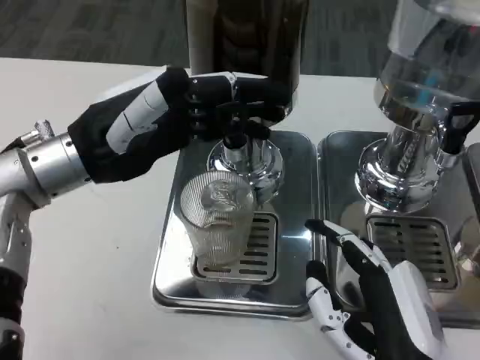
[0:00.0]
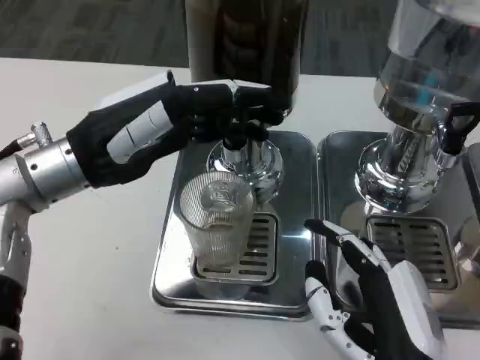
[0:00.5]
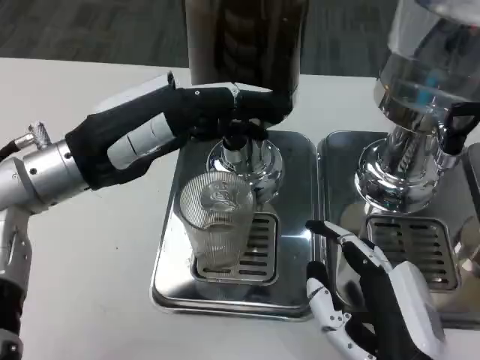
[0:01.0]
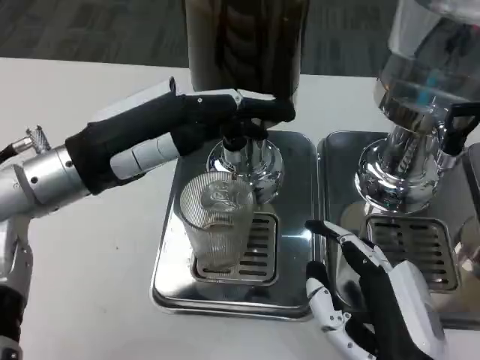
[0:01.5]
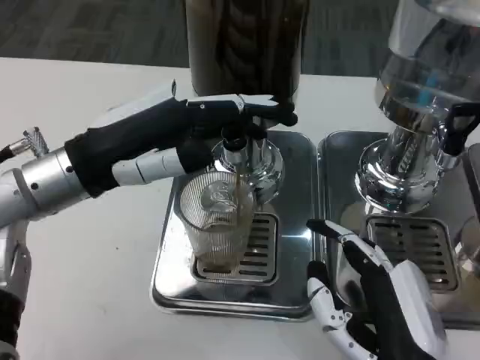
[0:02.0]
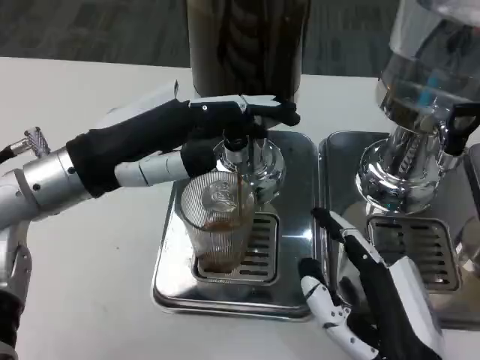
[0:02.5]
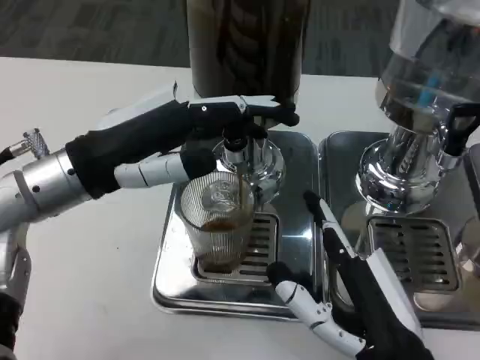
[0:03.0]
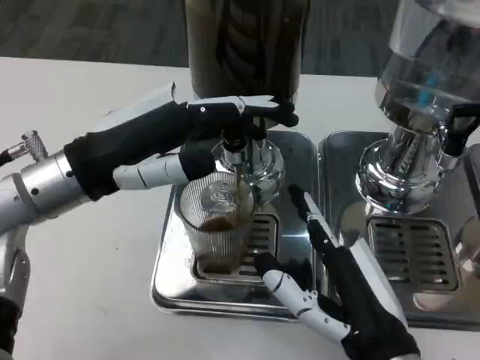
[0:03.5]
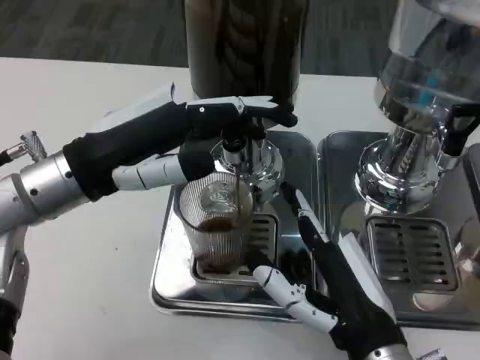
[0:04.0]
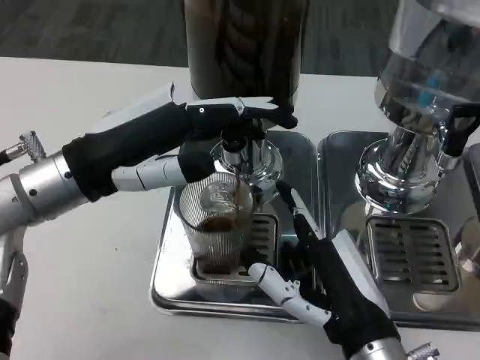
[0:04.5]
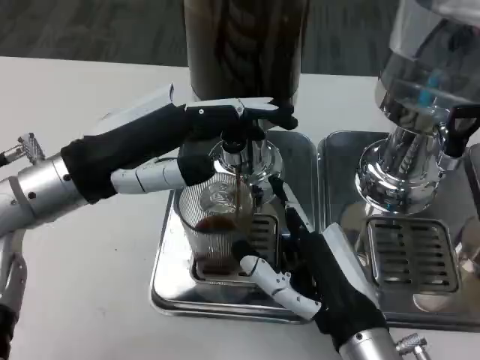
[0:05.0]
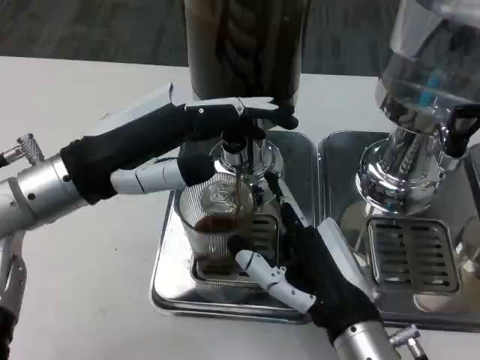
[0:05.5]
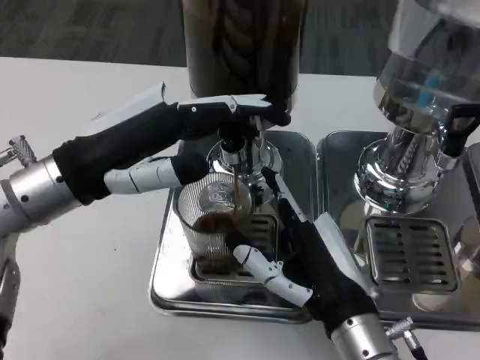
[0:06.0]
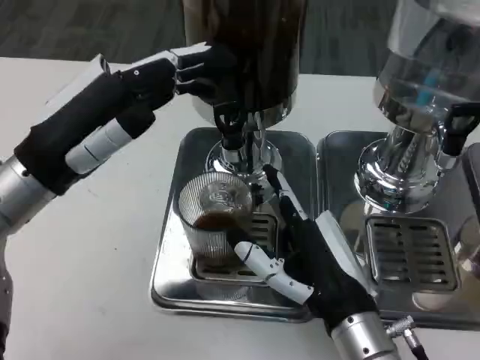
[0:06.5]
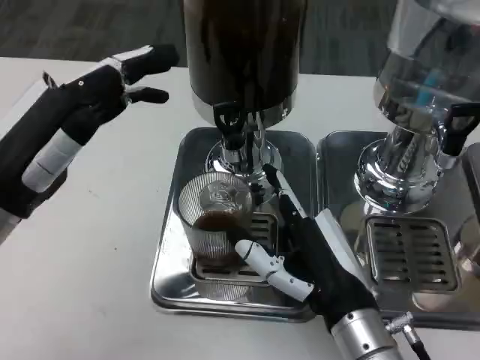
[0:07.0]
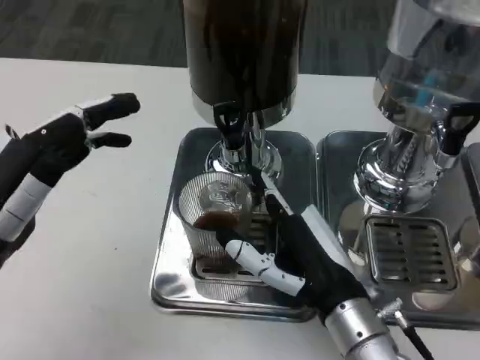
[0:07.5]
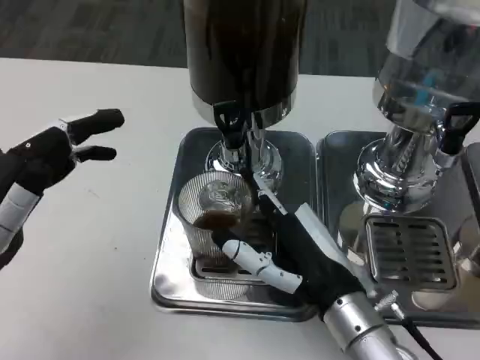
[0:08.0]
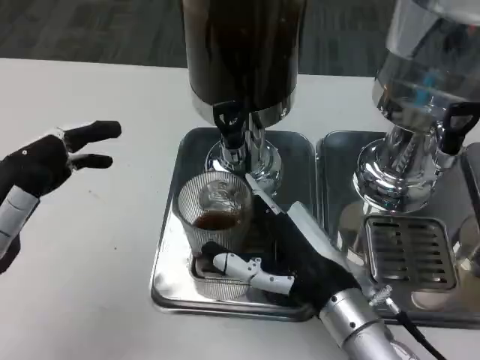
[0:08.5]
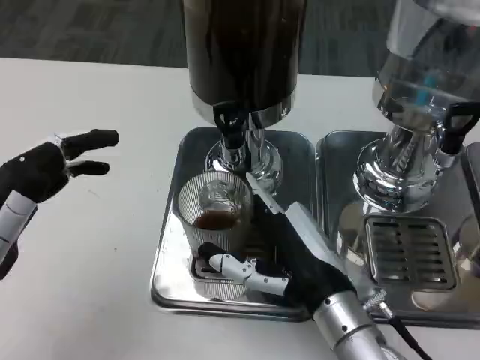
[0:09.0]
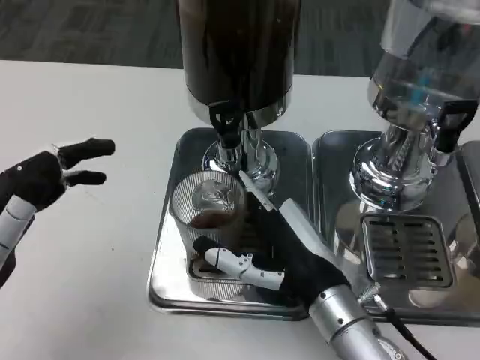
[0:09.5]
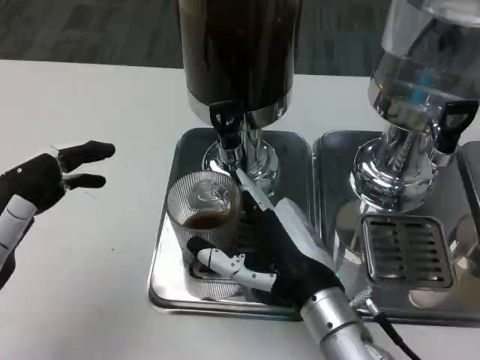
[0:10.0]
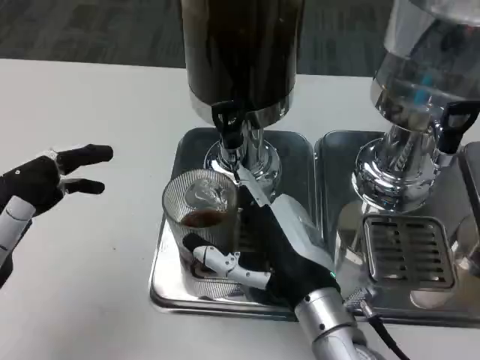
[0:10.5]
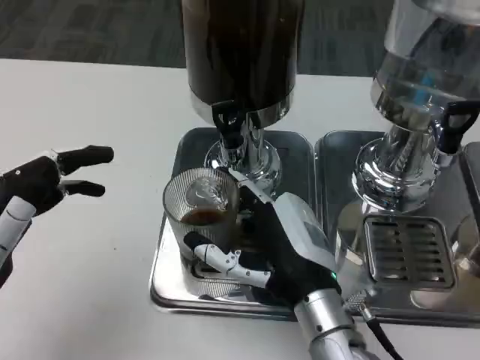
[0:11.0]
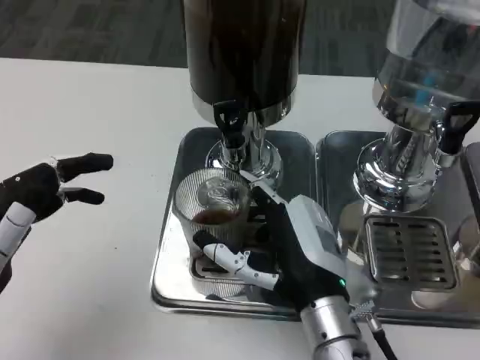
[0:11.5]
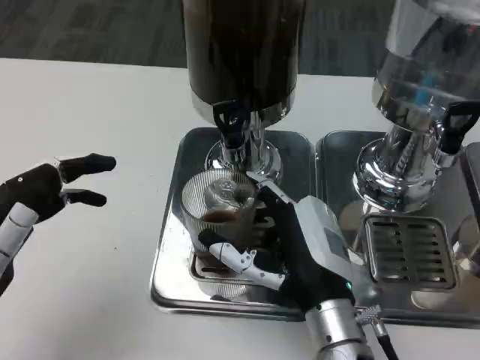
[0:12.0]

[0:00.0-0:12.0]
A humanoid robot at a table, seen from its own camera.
Task of the whole recording: Grasp the cup under the faucet to collect the drink, then remove the cup.
0:02.0 to 0:04.0: The hands move only a little.
0:04.0 to 0:06.0: There are only small adjustments of the hands.
0:06.0 to 0:08.0: The left hand moves backward, to the left and downward, approximately 10 cm.

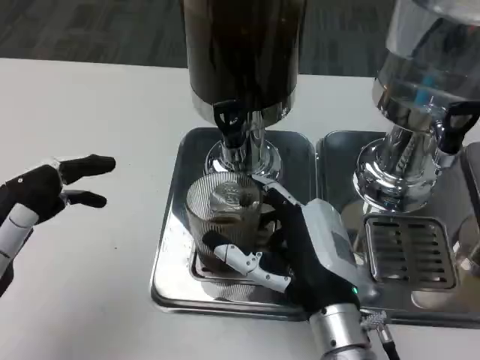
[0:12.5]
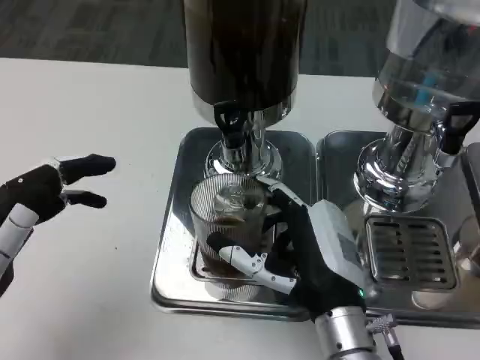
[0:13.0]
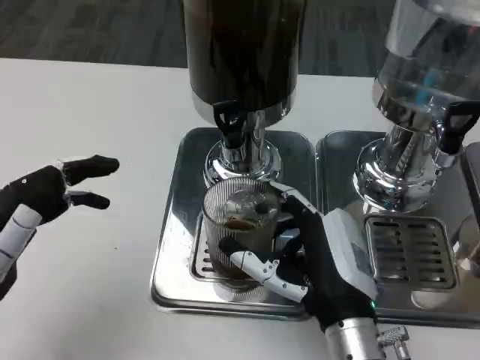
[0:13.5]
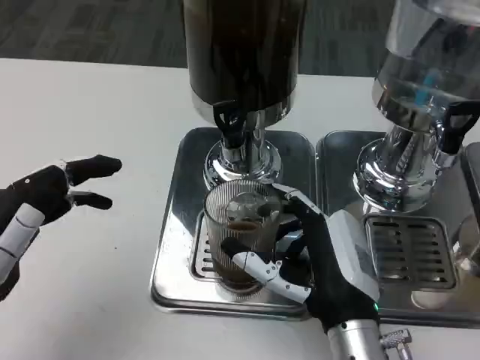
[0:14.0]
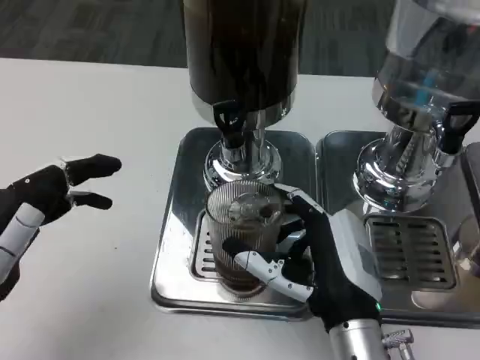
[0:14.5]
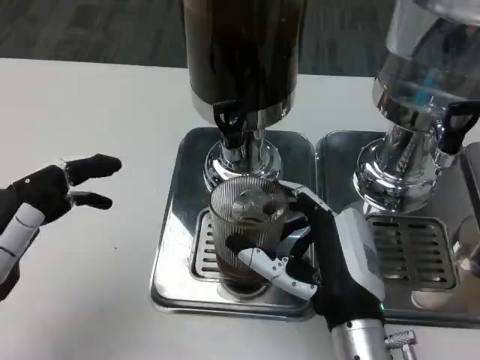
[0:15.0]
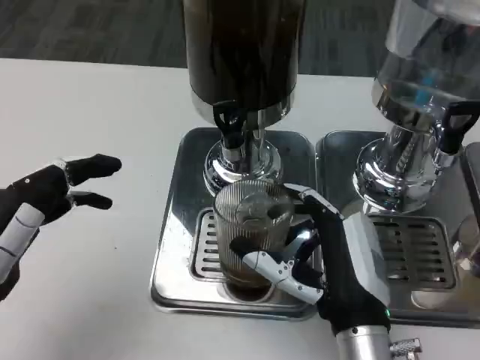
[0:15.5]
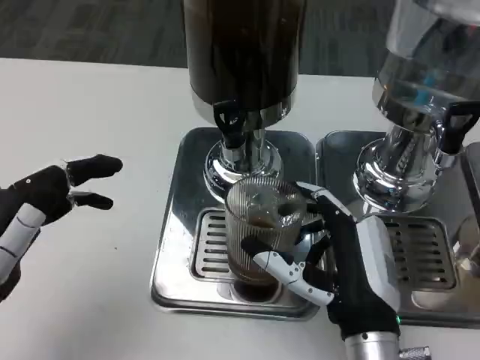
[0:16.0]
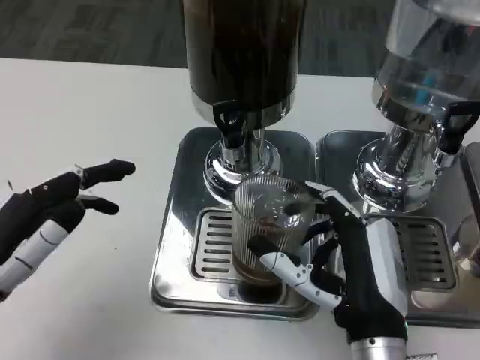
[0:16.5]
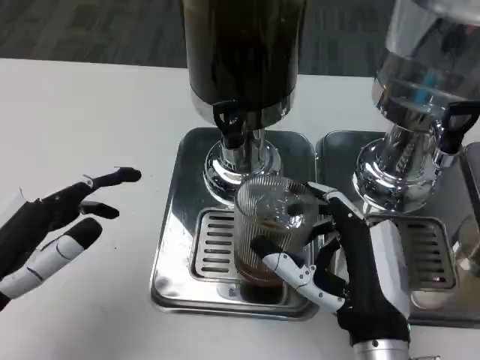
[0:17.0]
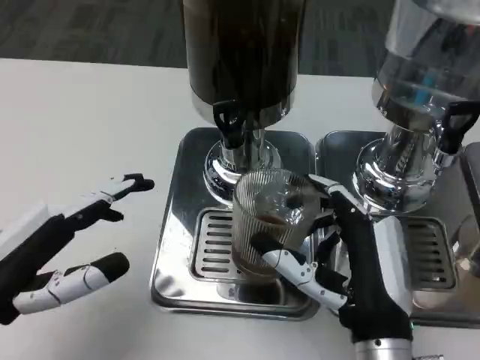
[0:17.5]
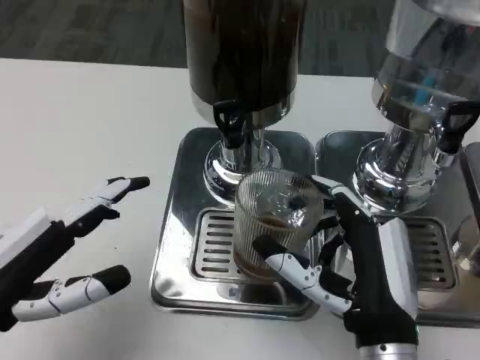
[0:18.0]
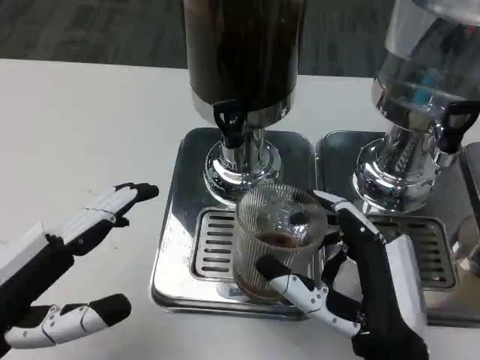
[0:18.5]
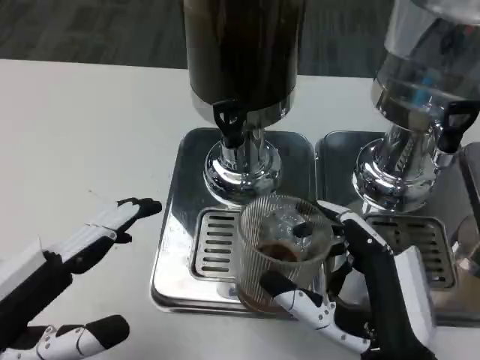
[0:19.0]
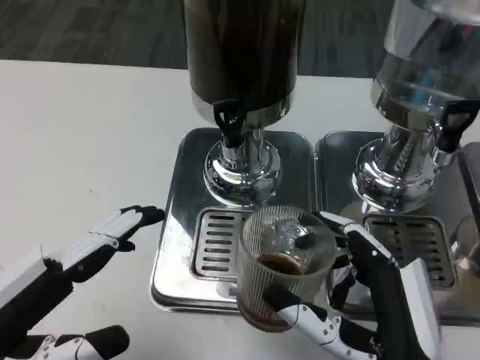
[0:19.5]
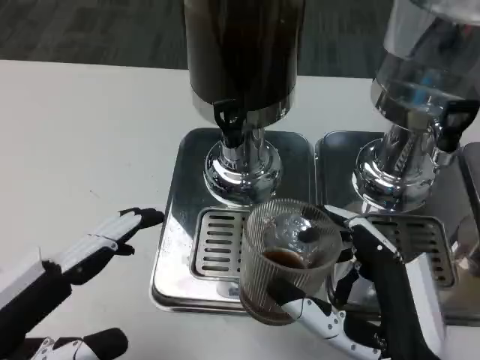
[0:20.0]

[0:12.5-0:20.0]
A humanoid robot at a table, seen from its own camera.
Task of the whole recording: Grasp the cup under the faucet to collect the drink, then remove the cup.
0:12.5 to 0:16.5: The hands move only a little.
0:18.0 to 0:20.0: The right hand moves some 5 cm.

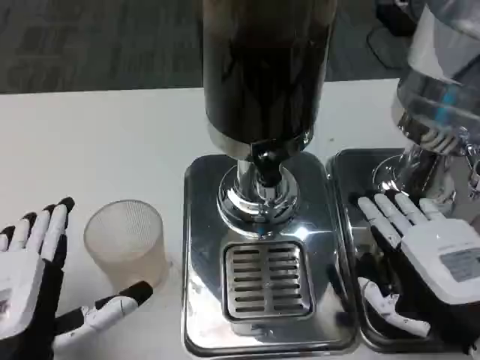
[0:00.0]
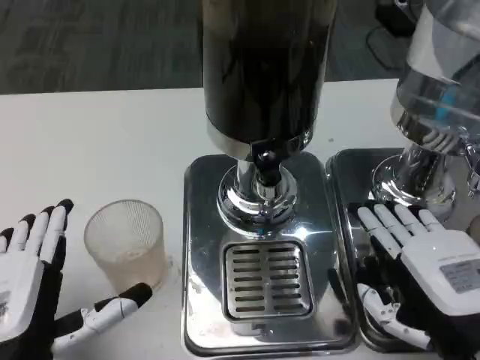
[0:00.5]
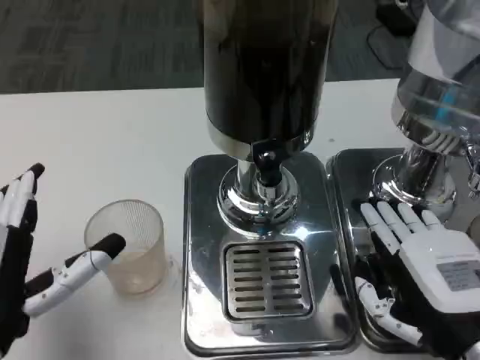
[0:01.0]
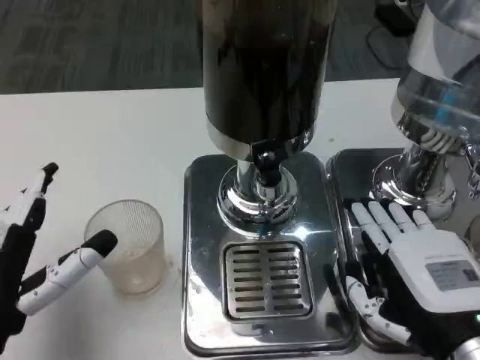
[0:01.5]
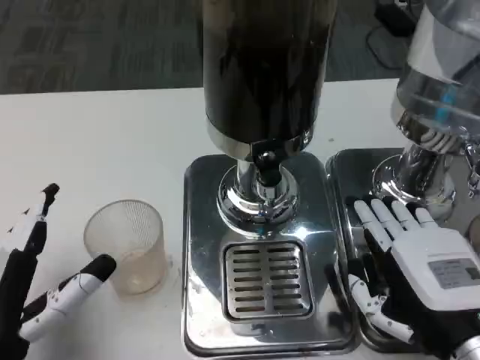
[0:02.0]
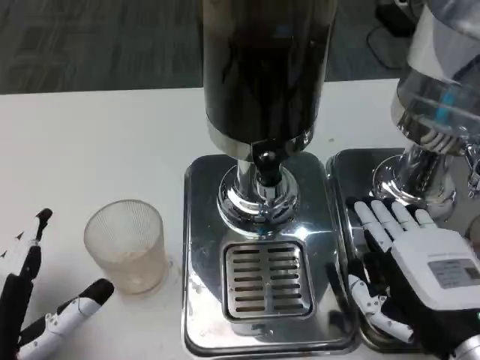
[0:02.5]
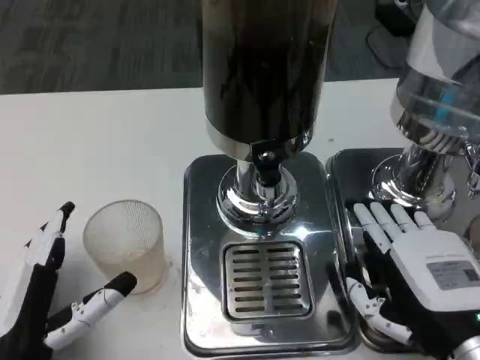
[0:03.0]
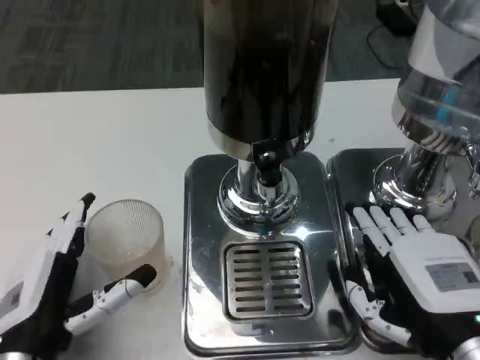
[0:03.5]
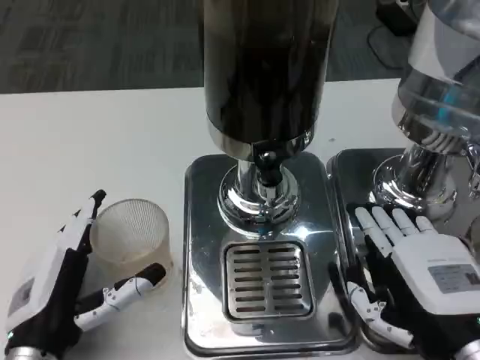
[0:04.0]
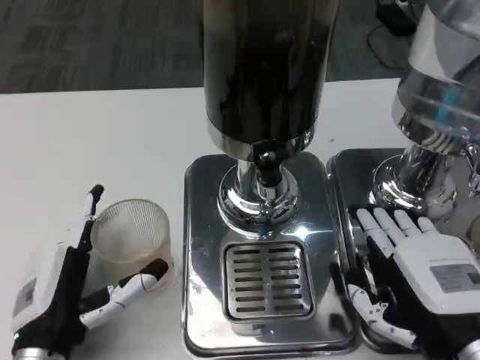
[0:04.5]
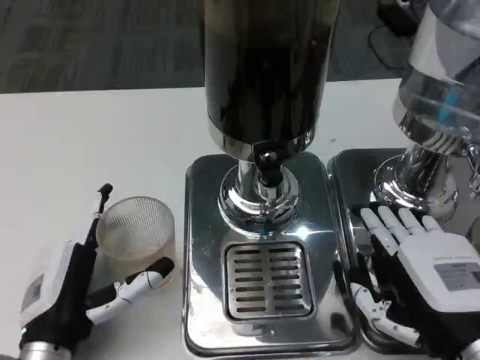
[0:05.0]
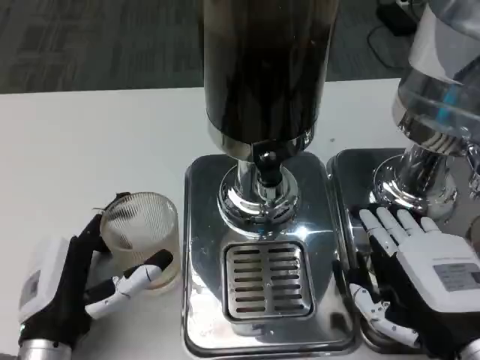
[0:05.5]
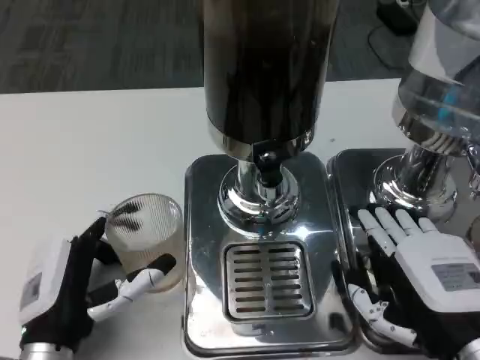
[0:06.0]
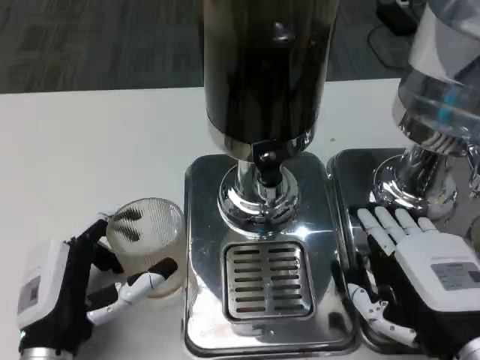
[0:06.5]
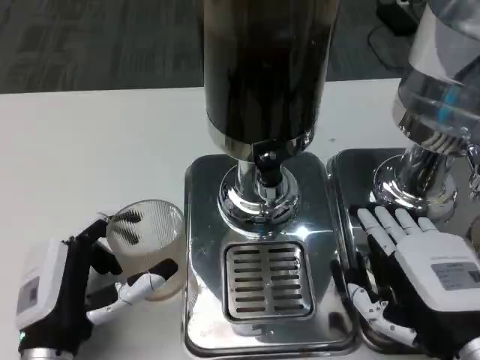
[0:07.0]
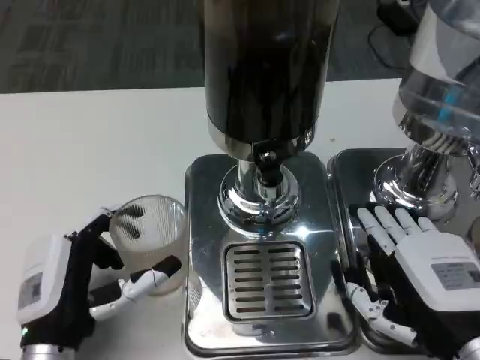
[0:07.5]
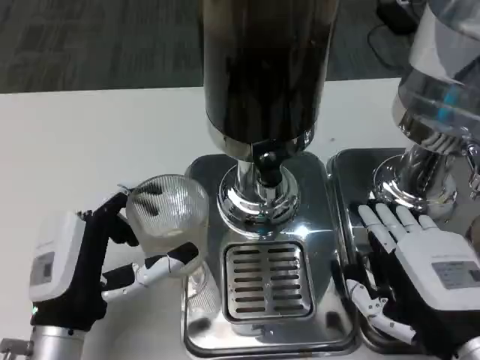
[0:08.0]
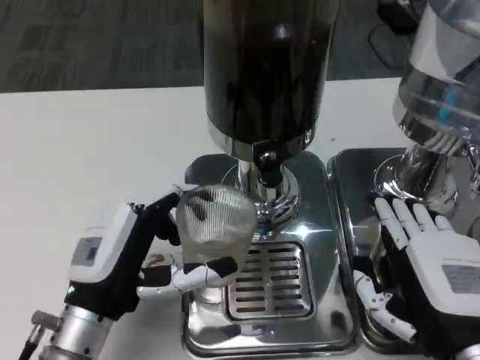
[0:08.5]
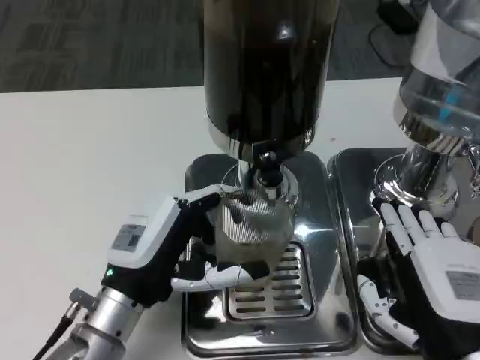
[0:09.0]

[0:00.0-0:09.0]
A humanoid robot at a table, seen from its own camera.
Task of the whole recording: Grasp the cup under the faucet to collect the drink, then remove the cup.
0:02.0 to 0:04.5: The left hand shifts roughly 5 cm downward.
0:04.5 to 0:07.0: There are only small adjustments of the hands.
0:07.0 to 0:09.0: The left hand goes about 5 cm forward.
